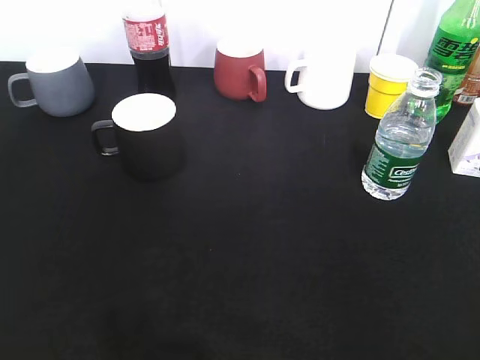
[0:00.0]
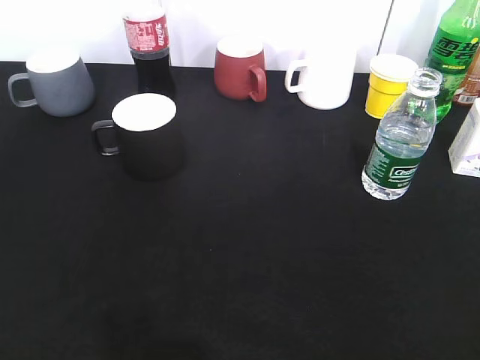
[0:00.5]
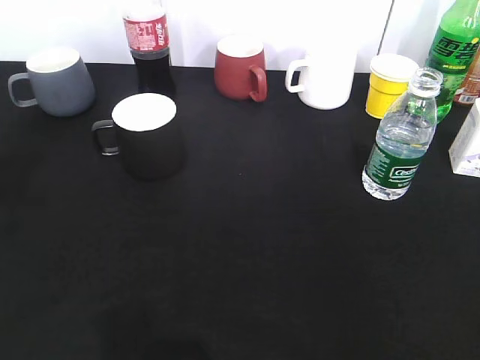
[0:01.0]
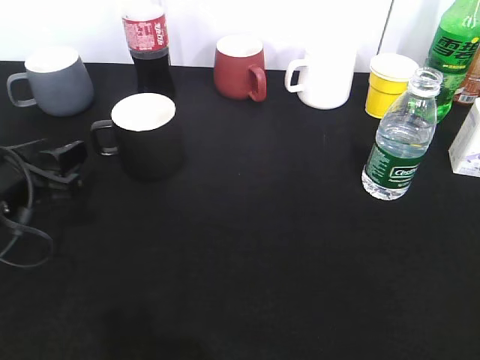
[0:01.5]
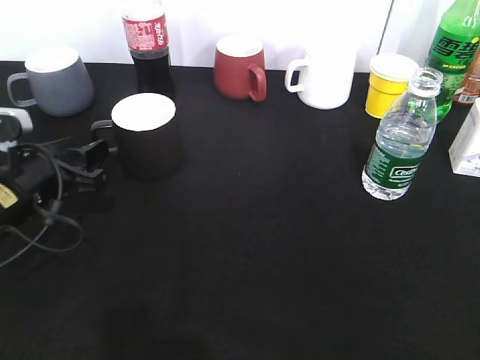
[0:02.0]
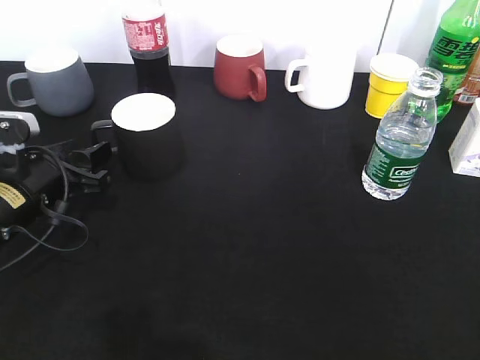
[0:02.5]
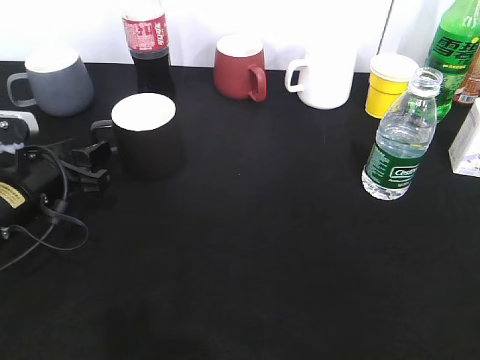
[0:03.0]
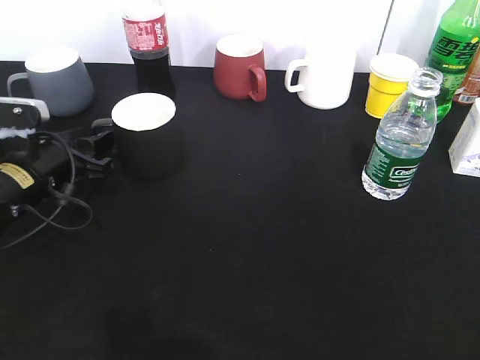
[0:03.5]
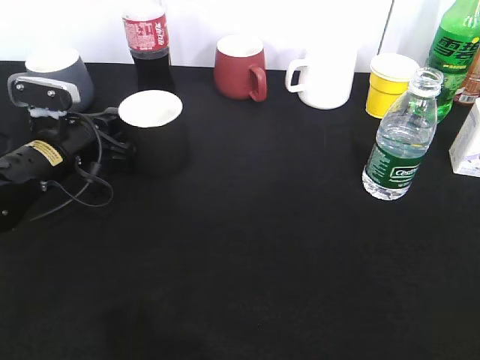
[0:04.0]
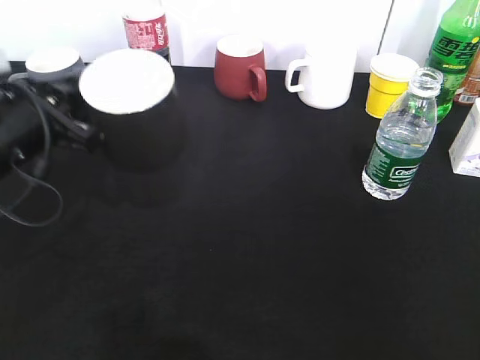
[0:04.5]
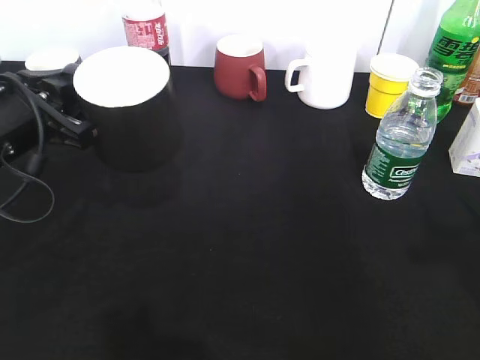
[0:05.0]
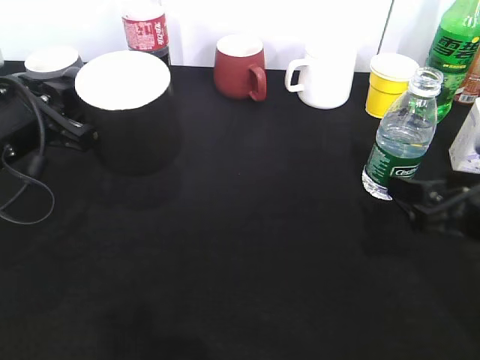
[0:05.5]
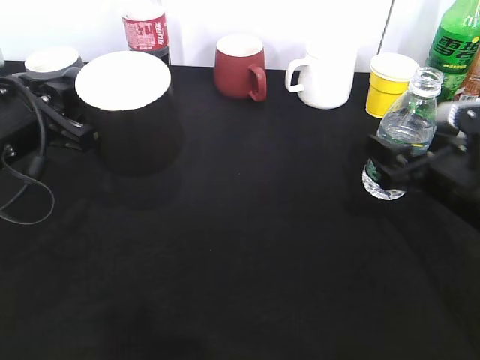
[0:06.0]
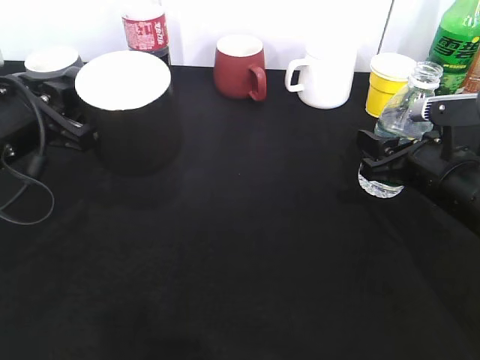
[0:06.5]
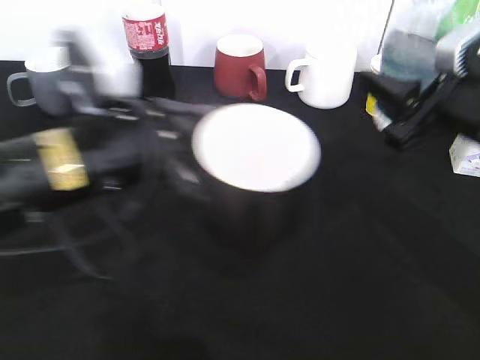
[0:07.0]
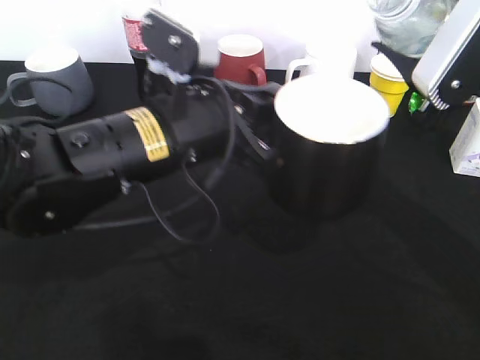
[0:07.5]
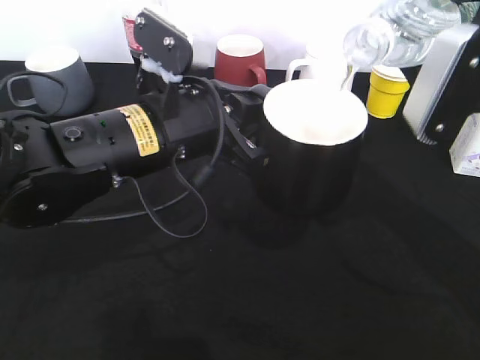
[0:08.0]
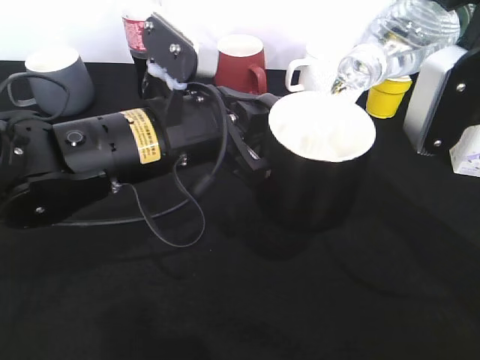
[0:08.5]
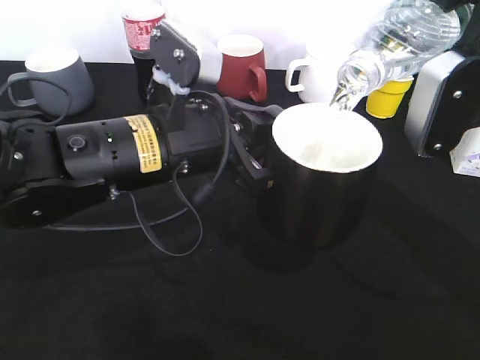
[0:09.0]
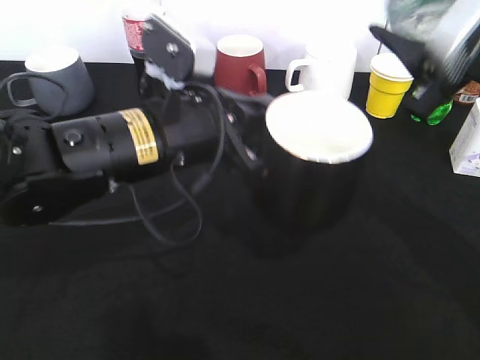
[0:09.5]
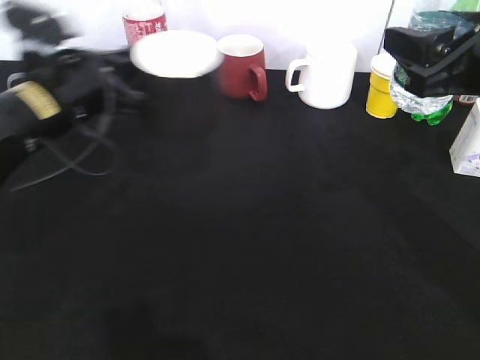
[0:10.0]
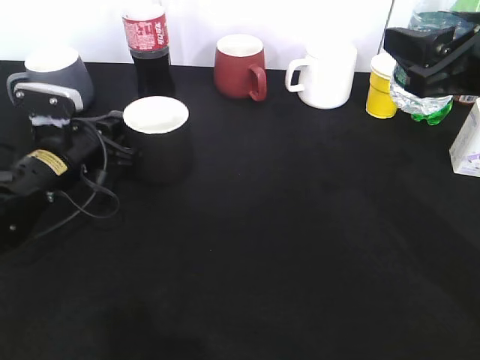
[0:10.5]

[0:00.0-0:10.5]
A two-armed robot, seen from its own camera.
Step, 0:00.0 to 0:04.0: Grasp the black cup with left gripper.
Step, 0:05.0 to 0:06.0: Grasp the bottle with water with right gripper.
Step, 0:06.5 to 0:09.5: Pour the water from bottle to cup with right gripper.
0:00.0 to 0:02.0: The left gripper shifts about 30 cm forward and downward, and opens up.
0:02.0 to 0:04.0: The left gripper travels forward by approximately 10 cm, and closes.
0:04.0 to 0:06.5: The left gripper shifts approximately 15 cm upward and backward; the right gripper moves forward and downward, roughly 30 cm, and opens and closes again.
0:06.5 to 0:08.5: The left gripper shifts about 15 cm to the right; the right gripper heads upward, covering roughly 15 cm.
0:08.5 to 0:10.5: The left gripper heads to the left, downward and forward, covering about 20 cm.

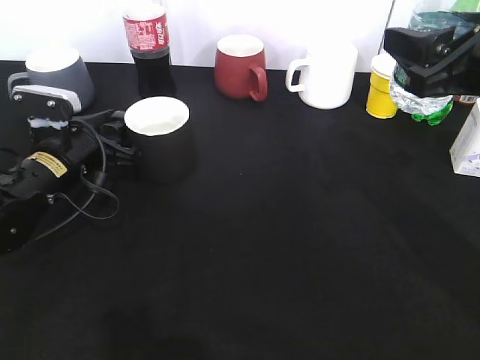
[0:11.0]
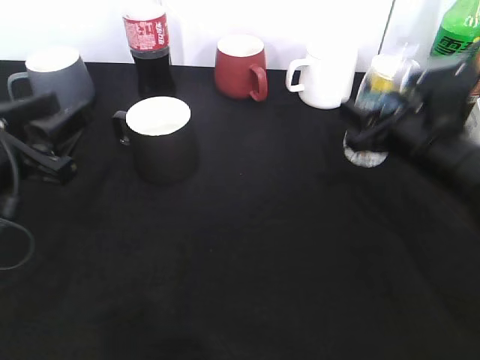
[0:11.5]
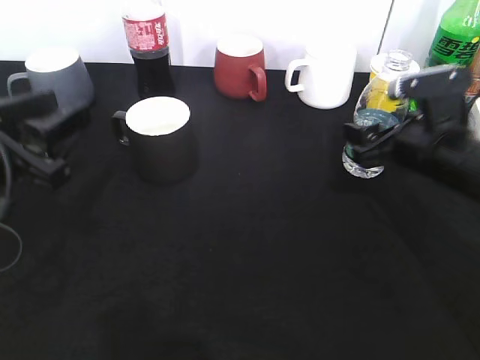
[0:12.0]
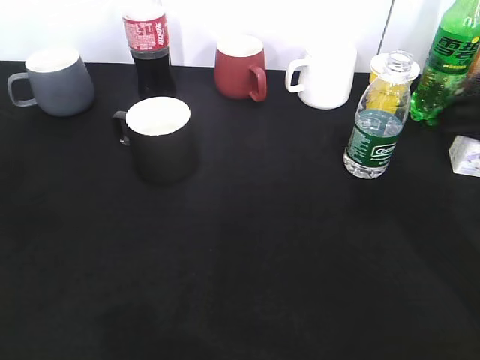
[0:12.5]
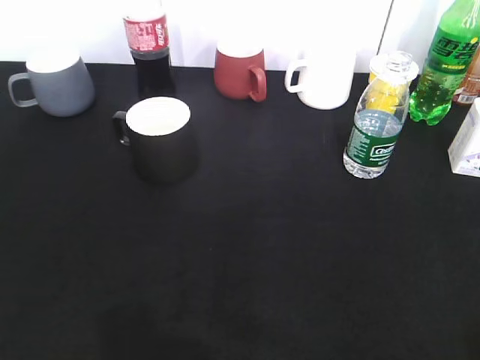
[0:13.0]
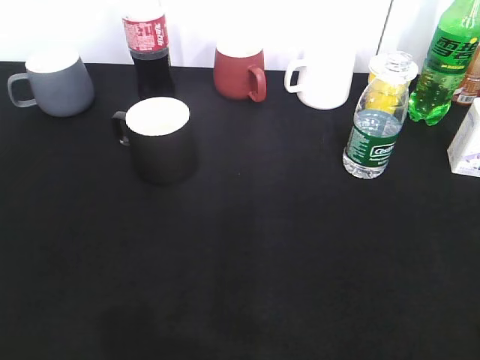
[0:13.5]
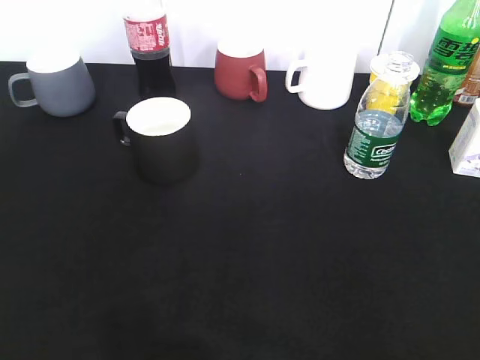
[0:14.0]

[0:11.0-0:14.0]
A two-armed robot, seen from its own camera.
Step, 0:11.5 to 0:12.0: Place the water bottle on the table with right gripper.
0:11.0 to 0:12.5: The right gripper moves some 15 cm downward and comes back, and opens, while the left gripper goes about 25 cm upward and backward.
0:12.5 to 0:14.0: The grippers both shift backward by about 20 cm.

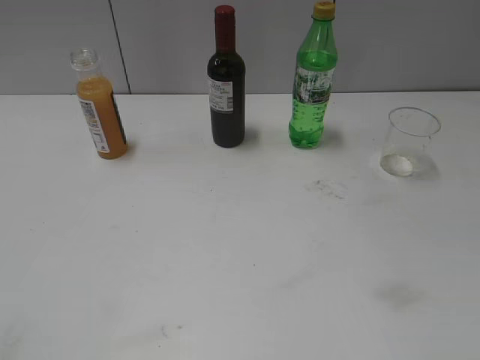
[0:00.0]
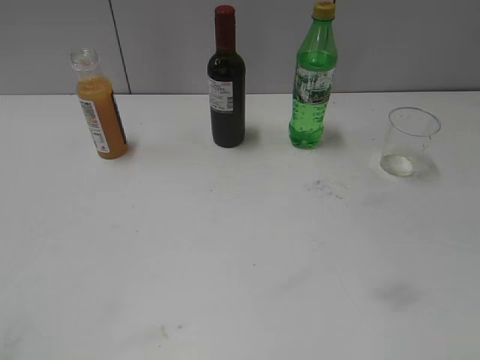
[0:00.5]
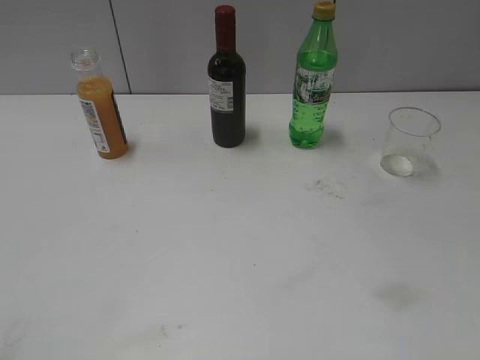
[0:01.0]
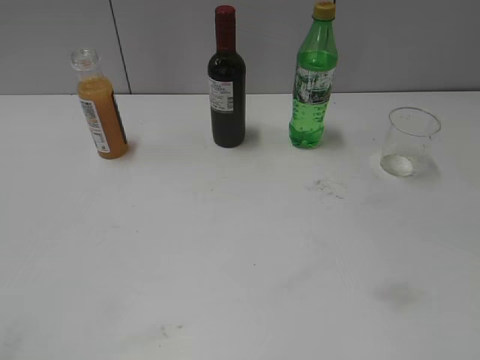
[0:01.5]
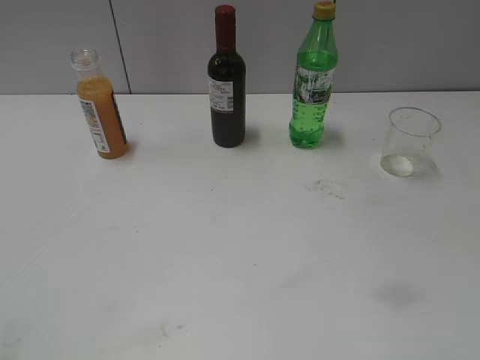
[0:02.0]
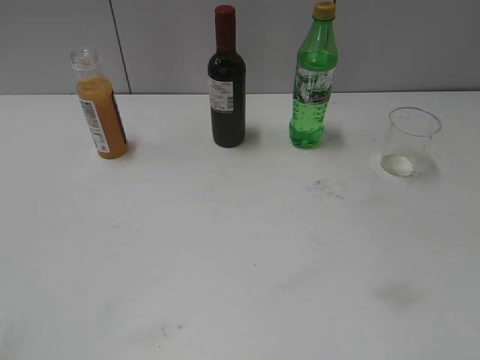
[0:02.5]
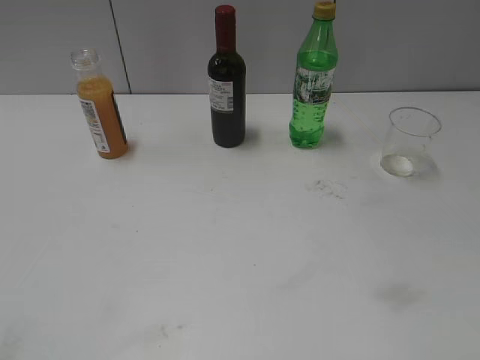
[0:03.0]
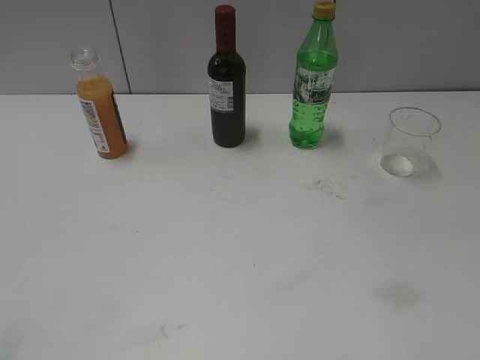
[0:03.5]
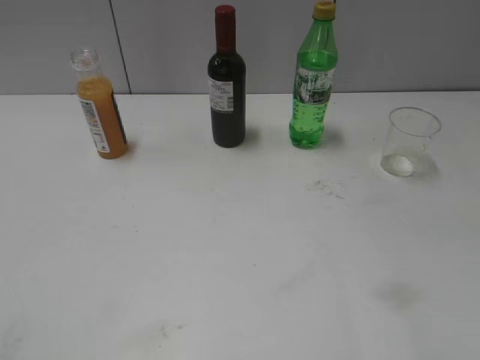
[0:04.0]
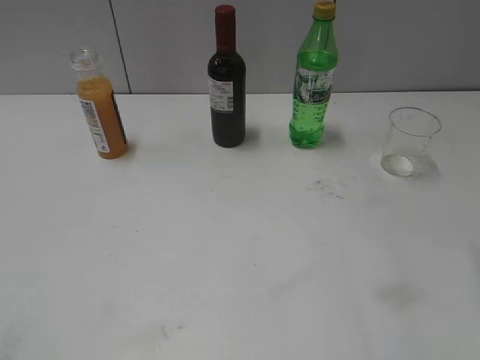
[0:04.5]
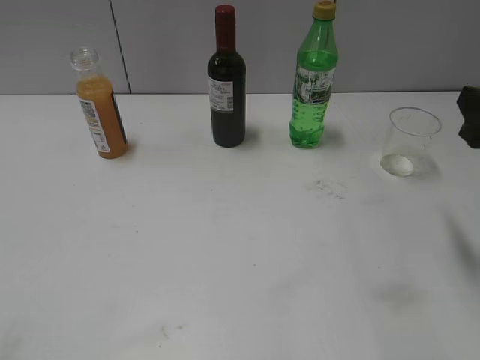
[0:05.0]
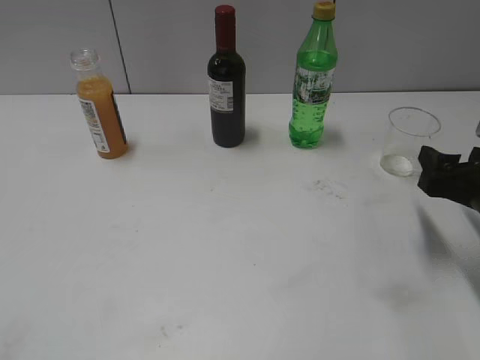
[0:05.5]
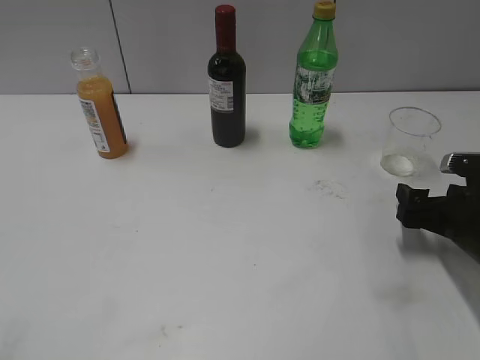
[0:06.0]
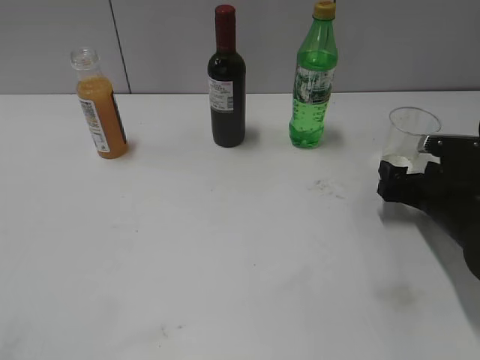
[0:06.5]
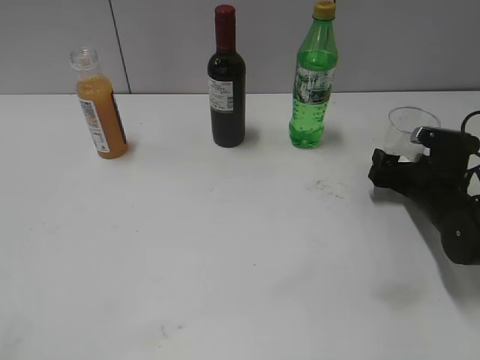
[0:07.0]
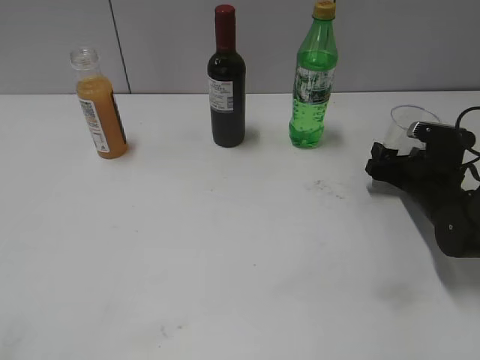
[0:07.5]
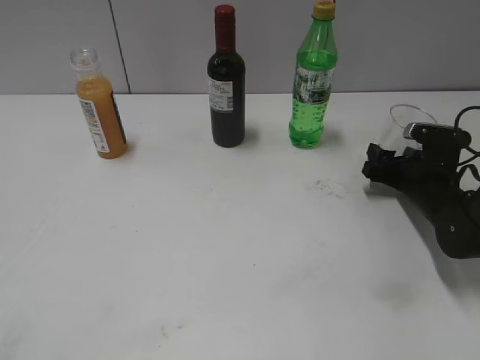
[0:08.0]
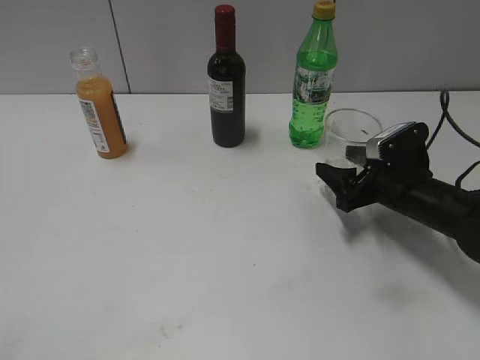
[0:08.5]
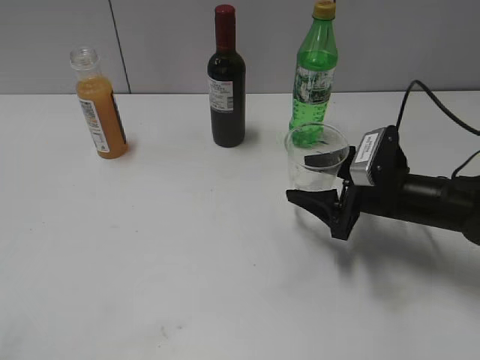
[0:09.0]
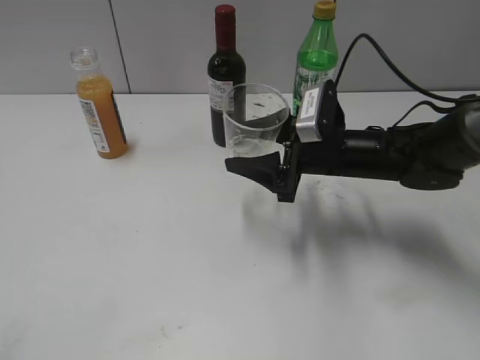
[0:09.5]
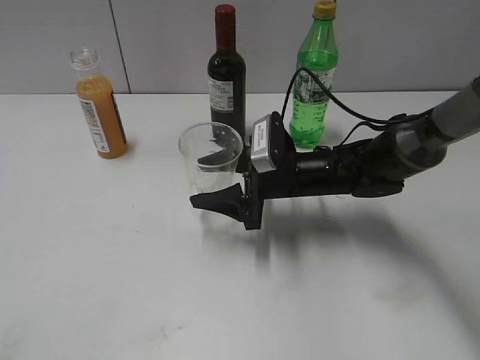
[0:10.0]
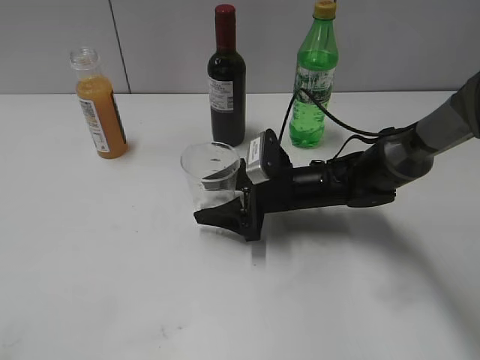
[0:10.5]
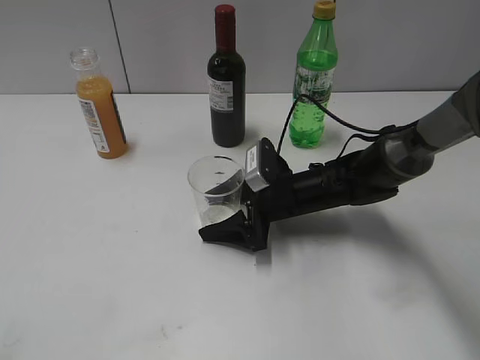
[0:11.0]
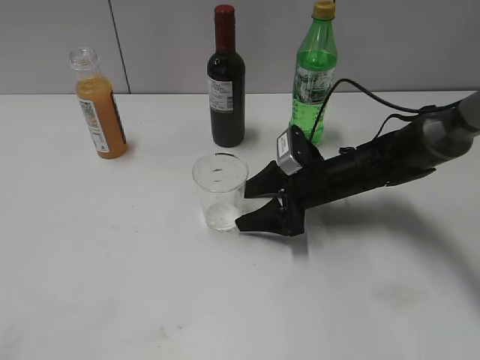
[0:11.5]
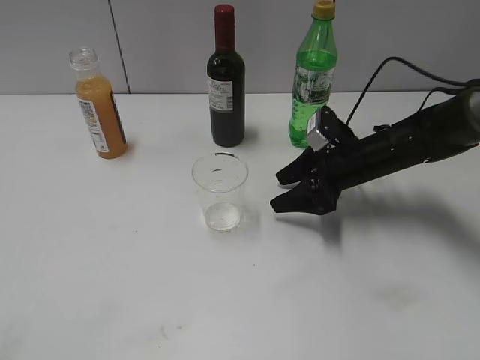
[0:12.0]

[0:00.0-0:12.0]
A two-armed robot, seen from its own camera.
Step, 0:05.0 to 0:07.5: Grasp the transparent cup with right gripper.
Step, 0:08.5 to 0:11.5: Place the transparent cup on the table with right gripper.
0:04.0 to 0:06.0: The right gripper heads downward and forward, covering some 30 cm, and opens up.
0:06.0 to 0:08.0: The right gripper is displaced forward by about 10 cm, and closes.
0:08.0 to 0:10.0: The right gripper heads to the left, covering approximately 20 cm.
0:10.0 to 0:12.0: The right gripper is displaced to the right by some 10 cm, and opens.
